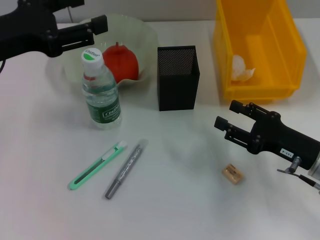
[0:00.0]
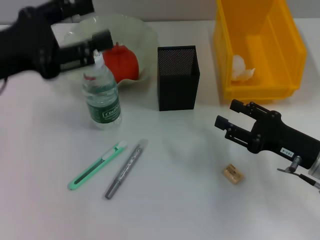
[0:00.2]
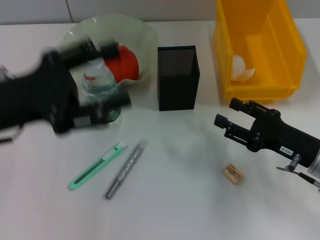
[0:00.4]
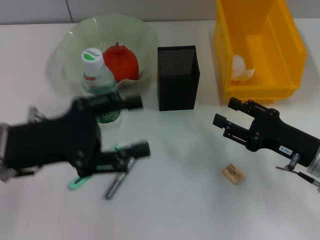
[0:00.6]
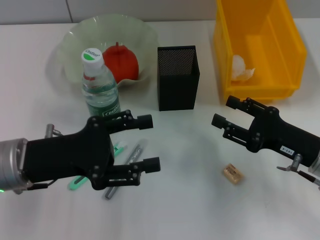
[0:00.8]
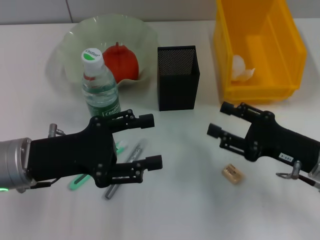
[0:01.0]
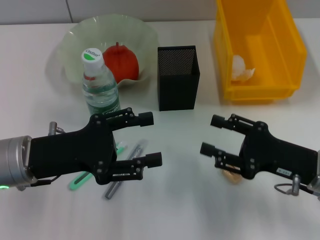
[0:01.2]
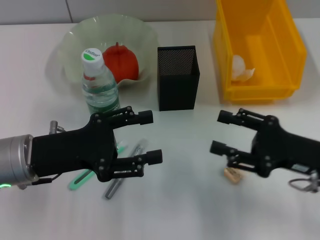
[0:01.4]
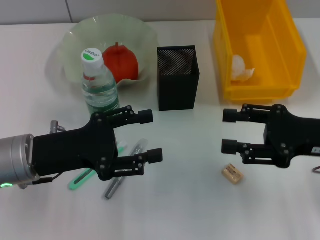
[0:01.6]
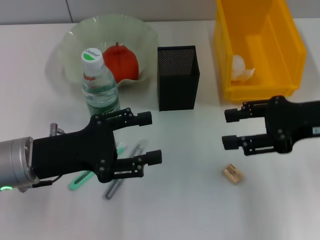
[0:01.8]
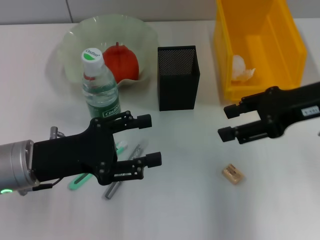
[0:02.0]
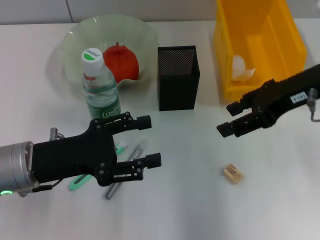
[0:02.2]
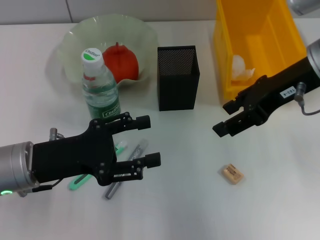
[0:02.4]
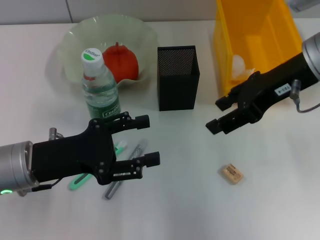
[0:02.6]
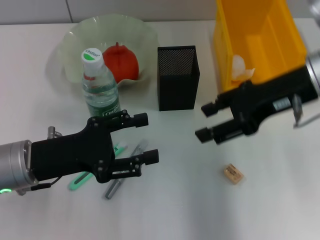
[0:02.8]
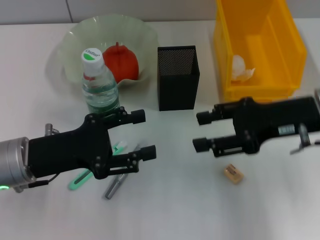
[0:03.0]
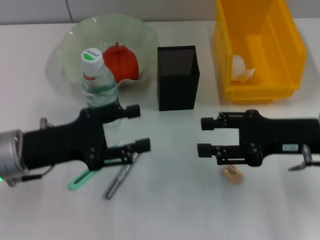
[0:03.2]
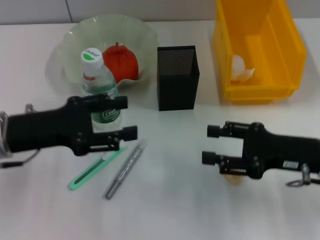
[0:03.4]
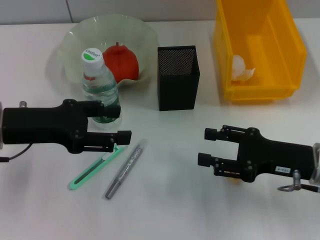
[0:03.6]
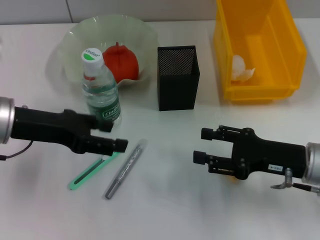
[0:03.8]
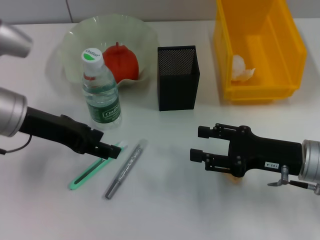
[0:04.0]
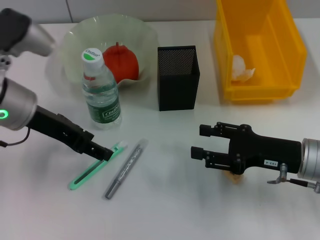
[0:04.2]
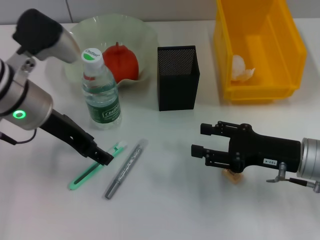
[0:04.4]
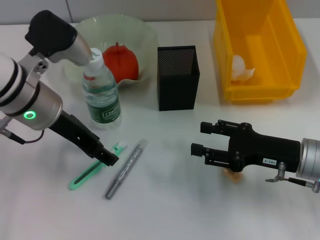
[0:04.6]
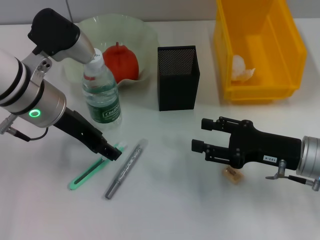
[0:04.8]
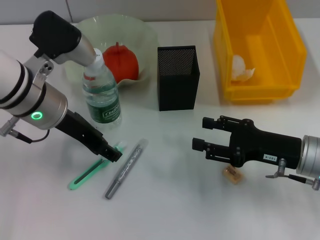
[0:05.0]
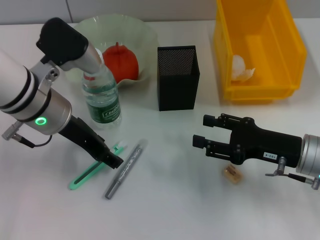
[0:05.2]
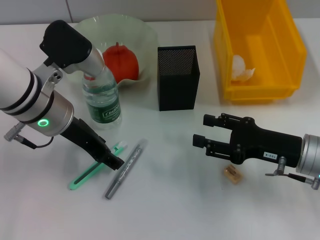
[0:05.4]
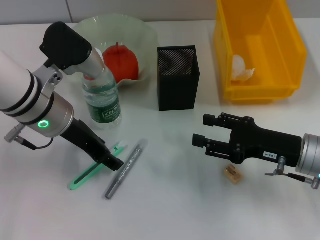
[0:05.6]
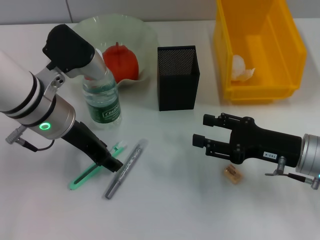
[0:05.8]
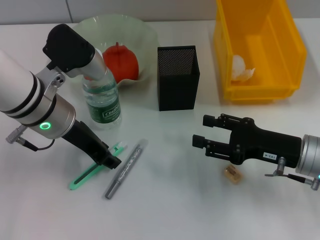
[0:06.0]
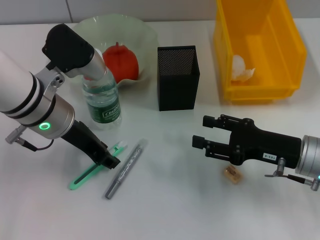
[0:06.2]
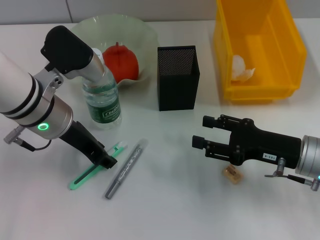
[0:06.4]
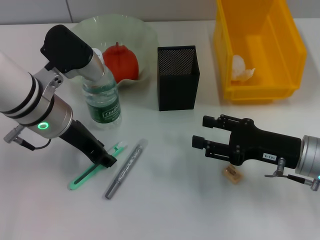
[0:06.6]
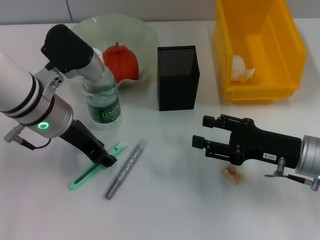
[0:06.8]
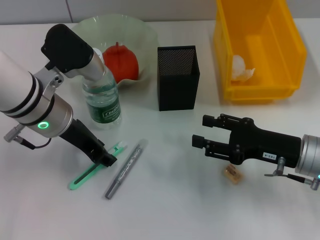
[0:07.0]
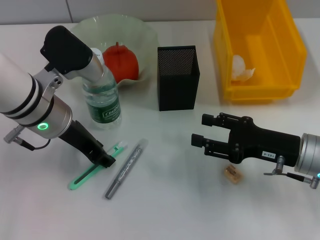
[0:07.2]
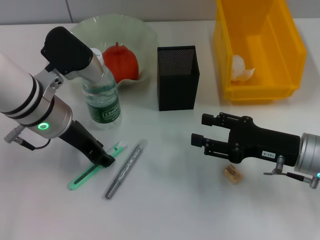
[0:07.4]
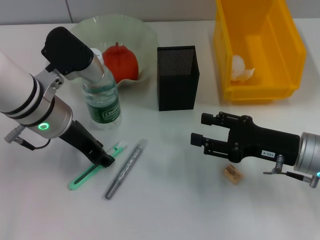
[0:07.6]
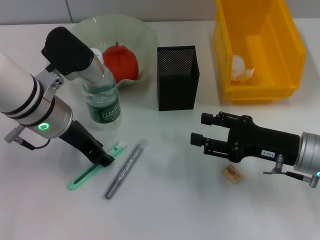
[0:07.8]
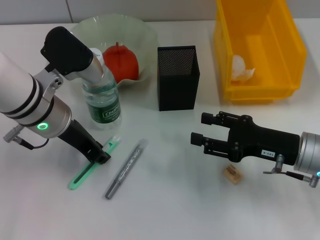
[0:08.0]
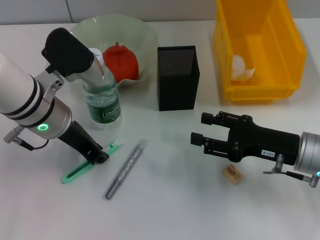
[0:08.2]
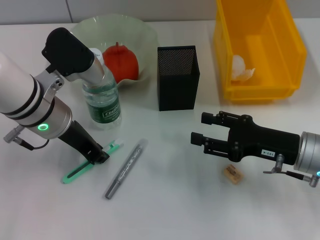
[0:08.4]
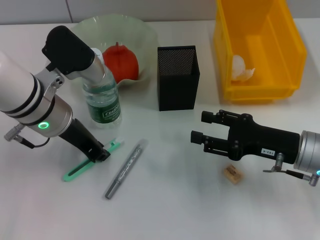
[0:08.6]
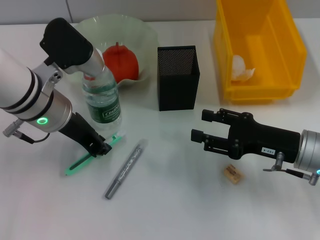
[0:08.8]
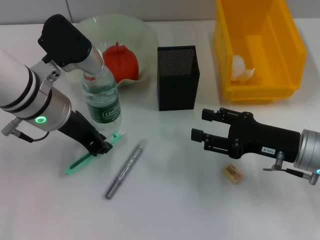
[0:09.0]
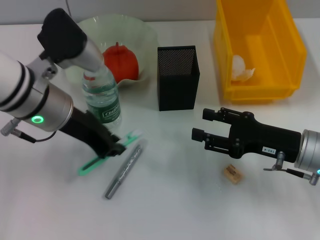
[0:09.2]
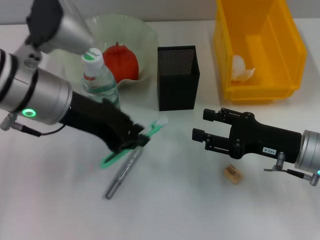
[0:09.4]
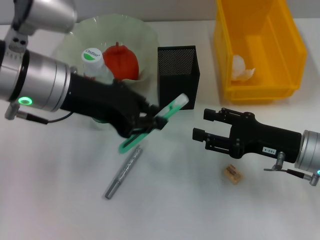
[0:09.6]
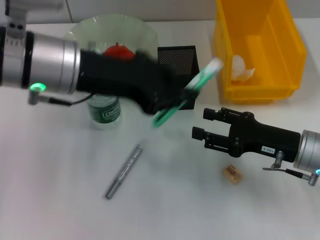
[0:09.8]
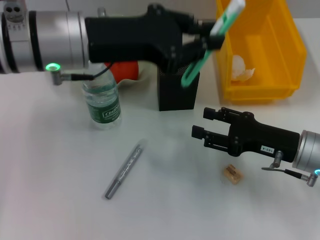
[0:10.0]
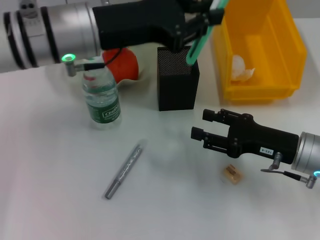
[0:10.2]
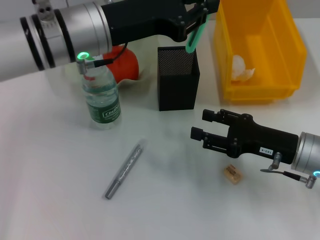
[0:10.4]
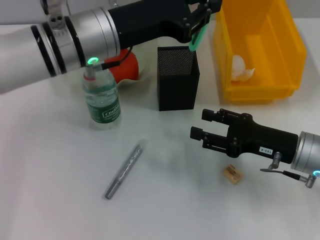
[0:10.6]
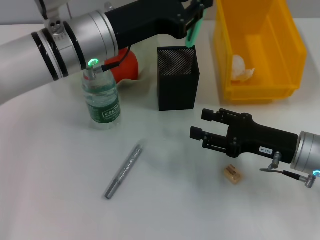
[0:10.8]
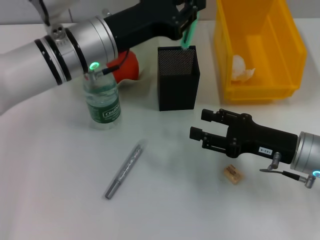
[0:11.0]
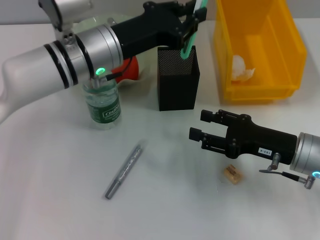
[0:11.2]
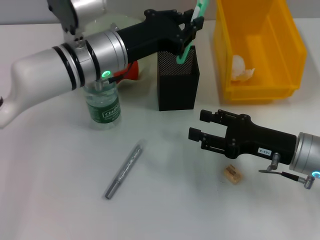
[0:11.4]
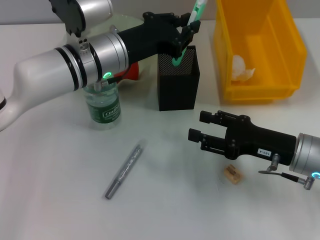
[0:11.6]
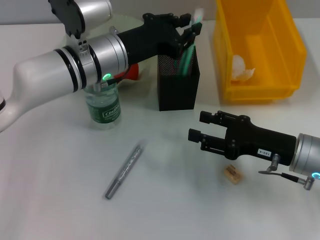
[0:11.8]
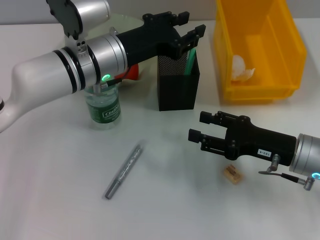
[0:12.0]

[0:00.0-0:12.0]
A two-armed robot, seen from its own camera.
Step, 0:00.0 to 0:08.0: Grab the blue utility knife with the left hand.
0:00.0 to 0:01.6: The left gripper heads downward, covering about 10 cm. The right gripper moves upward, some 10 cm.
0:01.6 to 0:03.0: The right gripper travels upward and back again, about 10 cm each way.
0:03.0 to 0:04.4: The left gripper moves forward and upward, some 10 cm. The right gripper travels downward by some 10 cm.
0:04.4 to 0:06.0: There are only small adjustments of the grippers.
0:06.0 to 0:07.6: Neither gripper changes place.
0:07.6 to 0:09.0: The left gripper closes its fingers.
0:09.0 to 0:10.4: The left gripper ends up approximately 5 cm from where it was.
0:10.4 to 0:12.0: The left gripper goes roughly 5 cm downward.

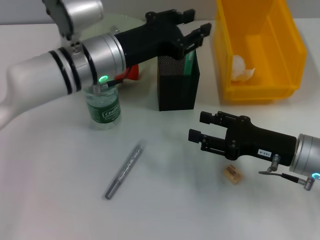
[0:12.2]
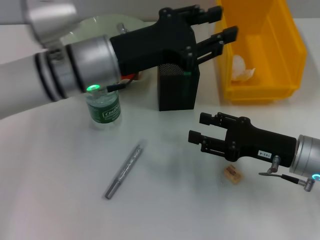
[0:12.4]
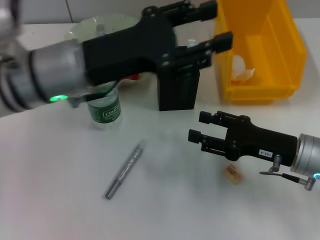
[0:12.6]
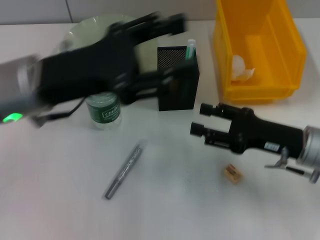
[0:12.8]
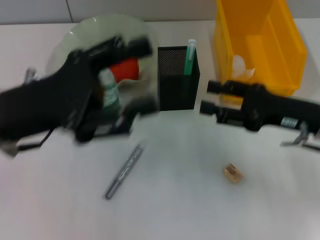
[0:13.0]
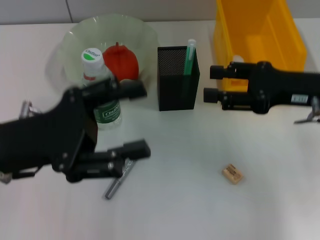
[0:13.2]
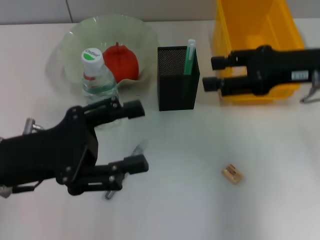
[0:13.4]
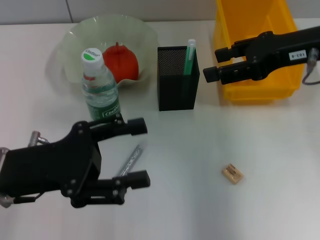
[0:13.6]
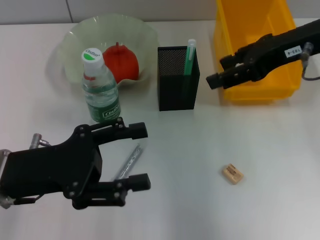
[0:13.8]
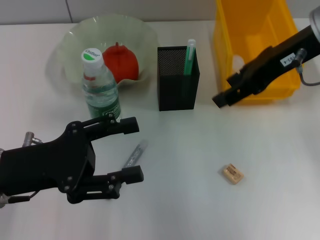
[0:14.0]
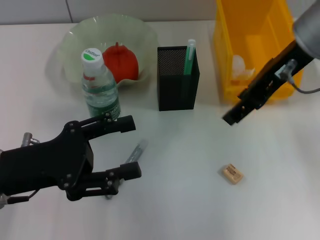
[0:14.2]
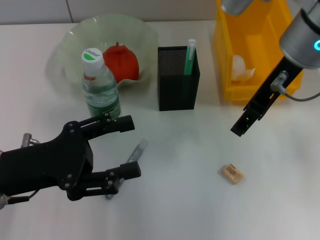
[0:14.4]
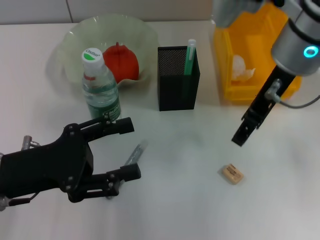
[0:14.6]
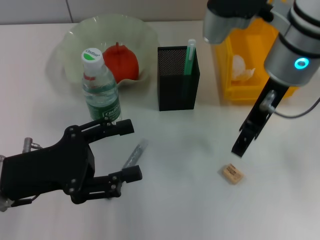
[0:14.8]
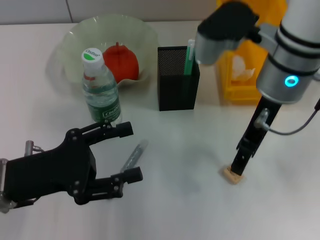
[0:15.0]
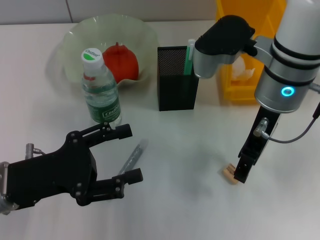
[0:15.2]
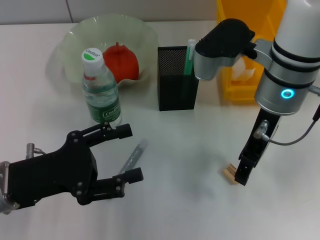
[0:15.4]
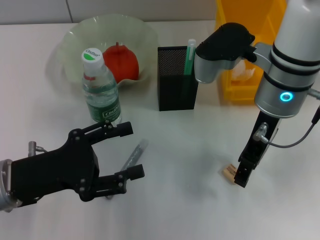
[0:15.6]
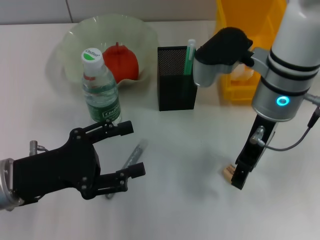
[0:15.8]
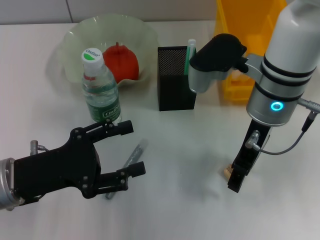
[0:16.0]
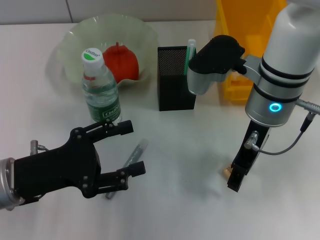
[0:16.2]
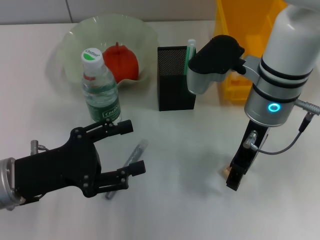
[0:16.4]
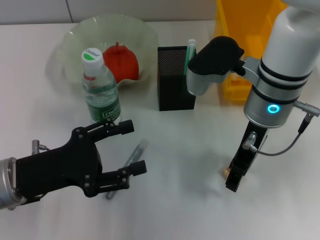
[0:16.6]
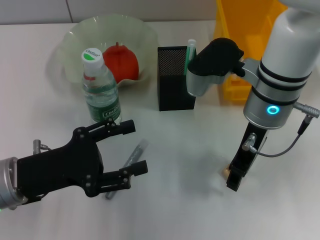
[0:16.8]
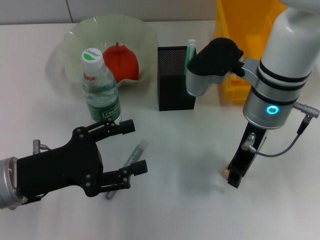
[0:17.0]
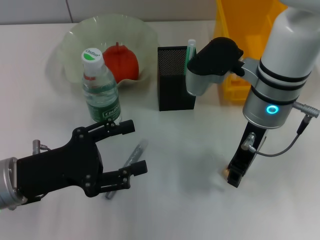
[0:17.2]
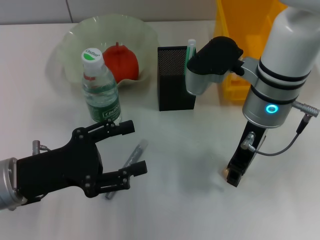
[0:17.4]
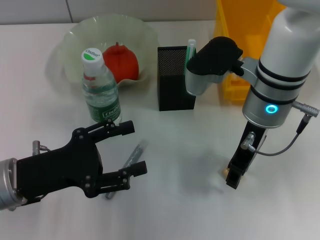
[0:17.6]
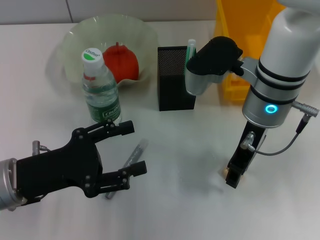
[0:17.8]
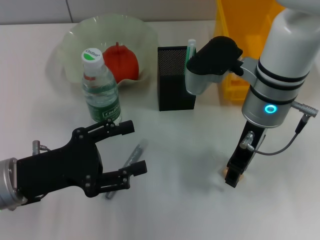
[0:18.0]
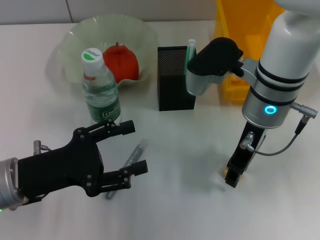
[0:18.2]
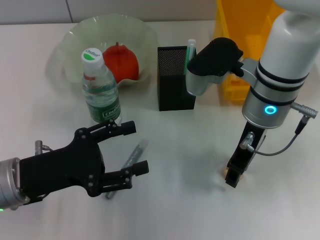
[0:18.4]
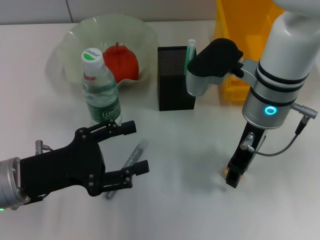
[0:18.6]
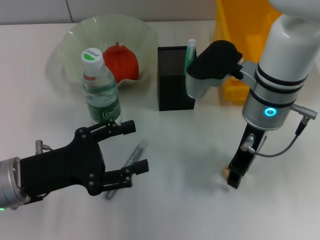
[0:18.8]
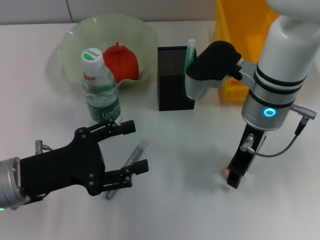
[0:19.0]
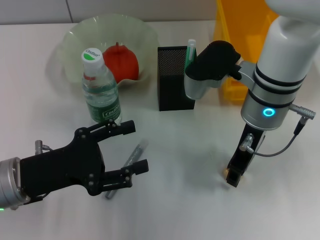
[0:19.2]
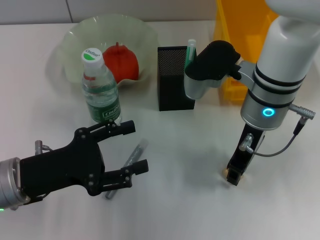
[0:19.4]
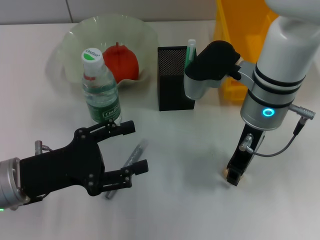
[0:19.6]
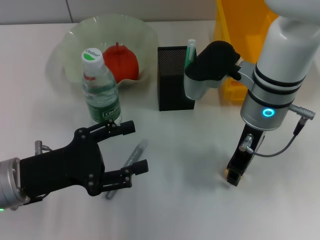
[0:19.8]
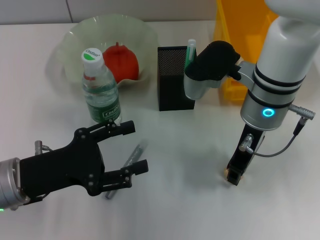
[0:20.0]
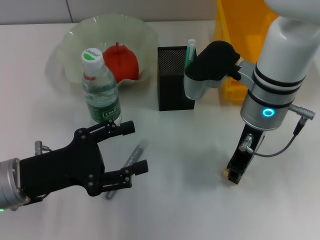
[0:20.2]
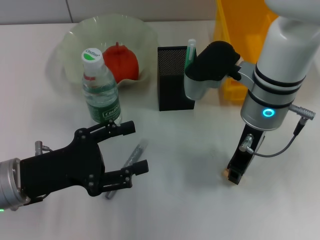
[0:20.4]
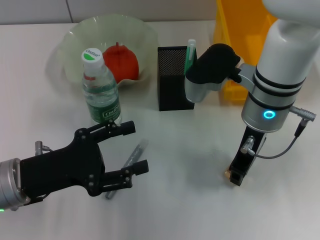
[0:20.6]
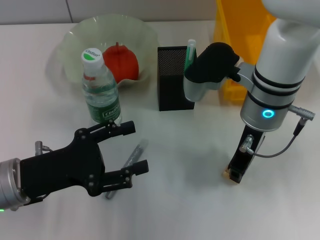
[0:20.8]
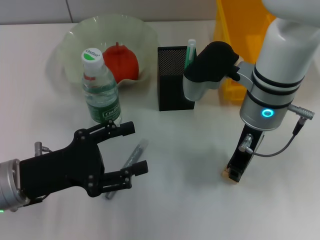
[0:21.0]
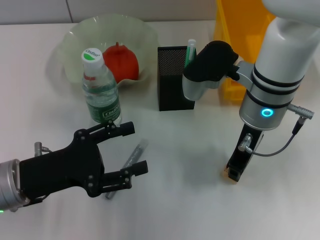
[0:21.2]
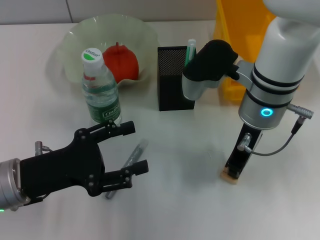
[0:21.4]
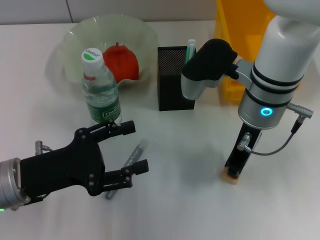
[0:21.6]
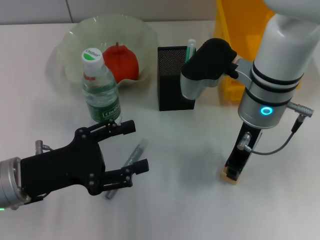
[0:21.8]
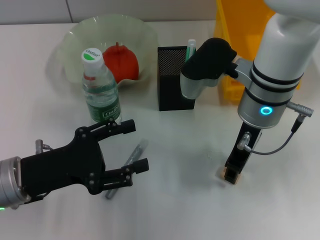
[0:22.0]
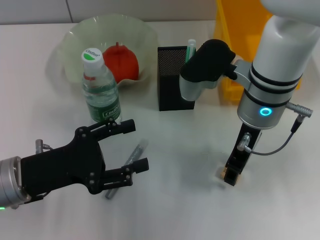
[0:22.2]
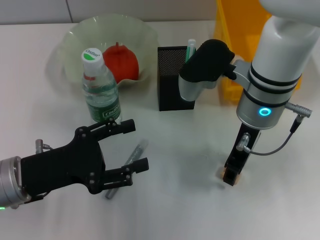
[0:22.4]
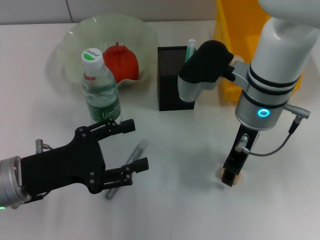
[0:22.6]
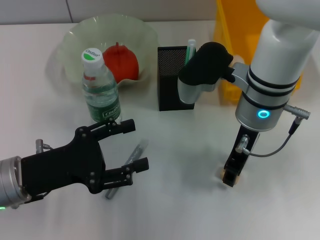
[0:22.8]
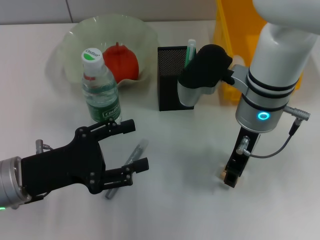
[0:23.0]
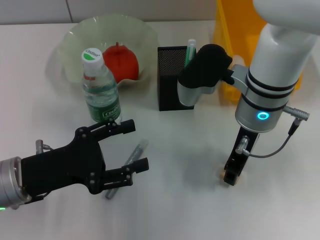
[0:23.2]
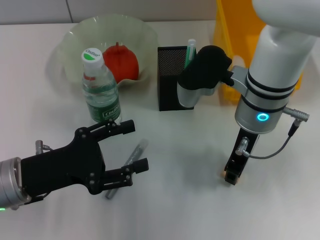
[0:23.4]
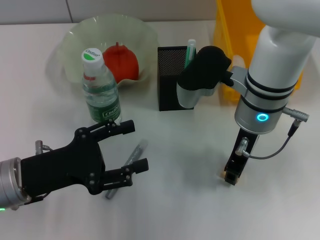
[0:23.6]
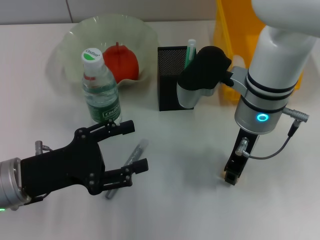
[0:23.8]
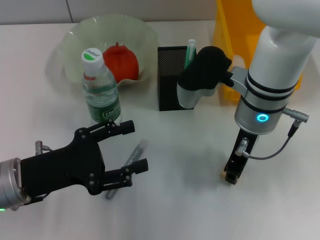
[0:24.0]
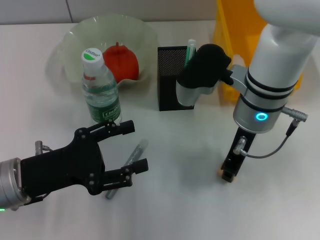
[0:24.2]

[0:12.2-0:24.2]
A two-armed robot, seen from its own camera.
Step, 0:12.4 to 0:23.6: Grab the eraser with the right hand.
0:12.2 to 0:13.8: The right gripper goes some 20 cm upward and forward. Meanwhile the left gripper is displaced backward and to the left by about 20 cm, and opens its fingers.
0:13.8 to 0:15.2: The right gripper heads to the left and downward, covering about 10 cm.
0:15.2 to 0:16.6: The grippers stay close to where they were, moving slightly.
0:16.6 to 0:21.2: Neither gripper changes place.
0:21.2 to 0:22.6: The right gripper opens its fingers.
0:22.6 to 0:24.2: The right gripper closes its fingers.
